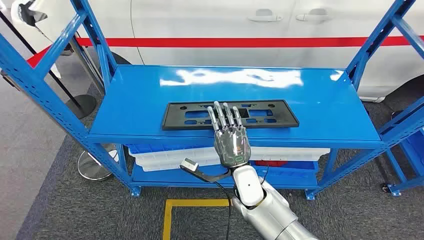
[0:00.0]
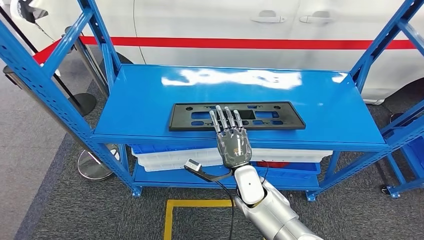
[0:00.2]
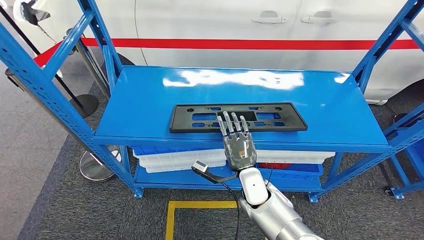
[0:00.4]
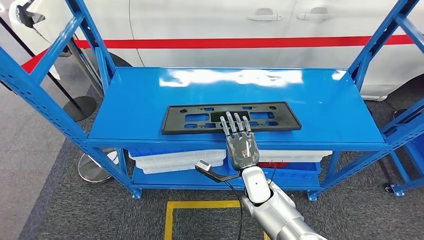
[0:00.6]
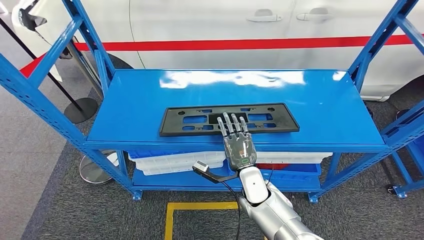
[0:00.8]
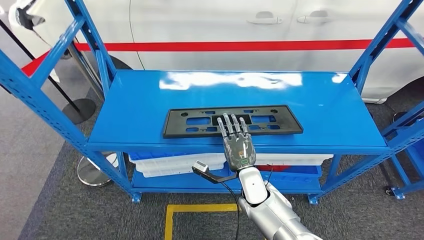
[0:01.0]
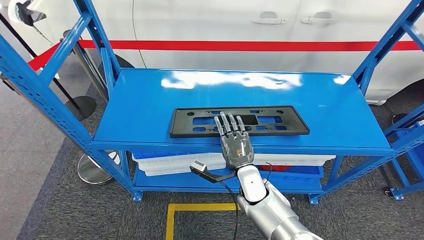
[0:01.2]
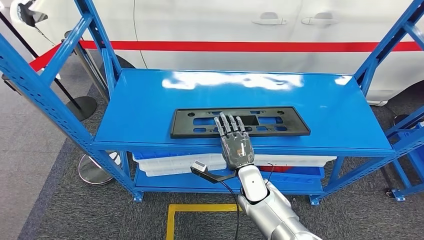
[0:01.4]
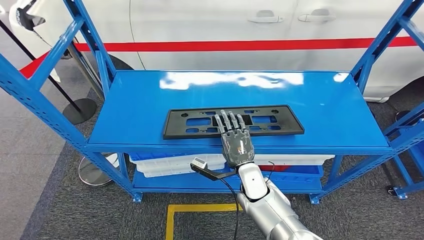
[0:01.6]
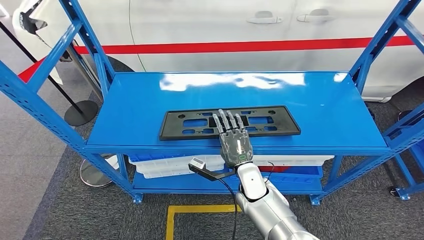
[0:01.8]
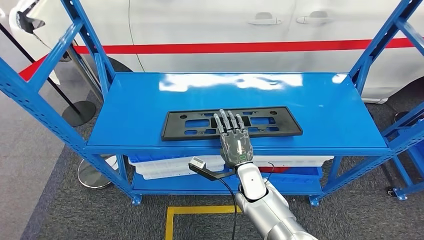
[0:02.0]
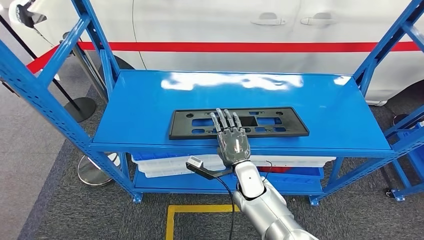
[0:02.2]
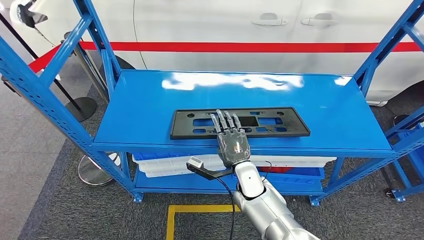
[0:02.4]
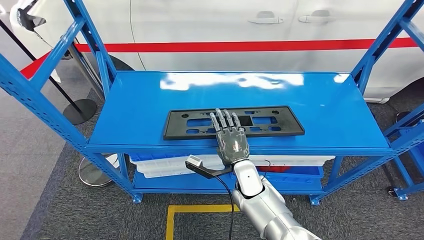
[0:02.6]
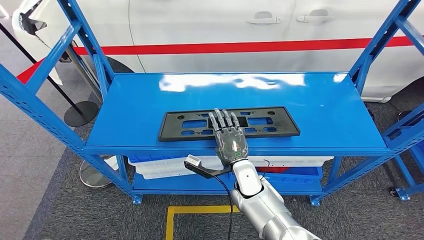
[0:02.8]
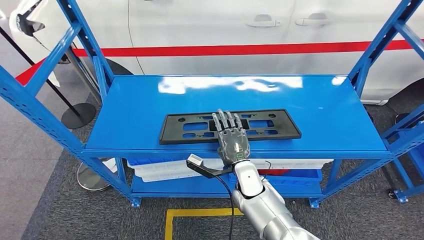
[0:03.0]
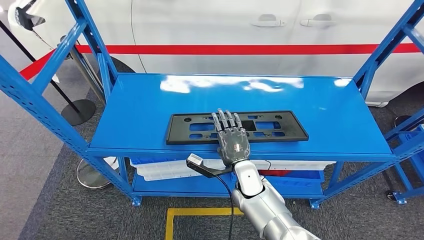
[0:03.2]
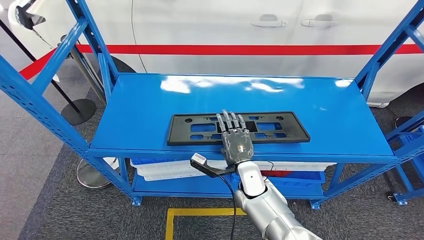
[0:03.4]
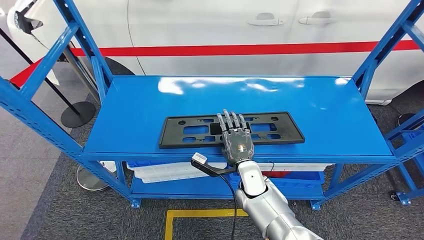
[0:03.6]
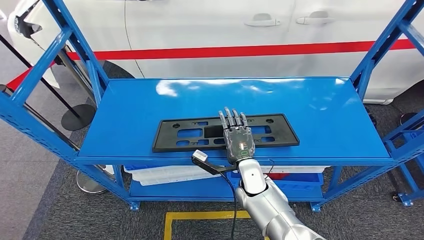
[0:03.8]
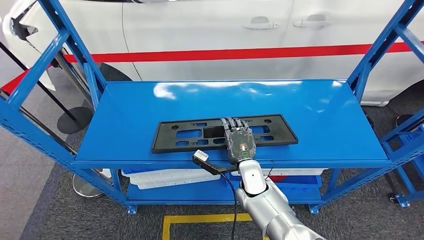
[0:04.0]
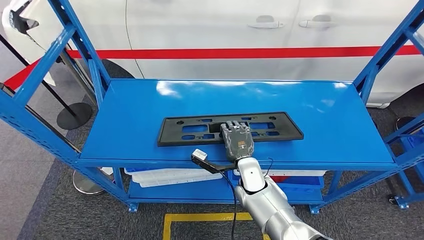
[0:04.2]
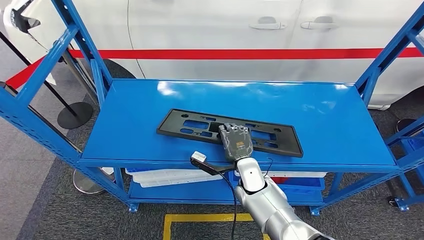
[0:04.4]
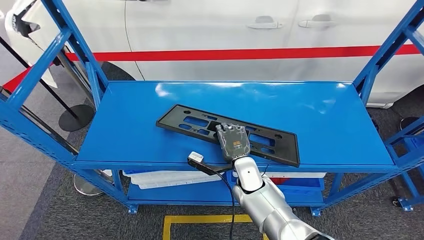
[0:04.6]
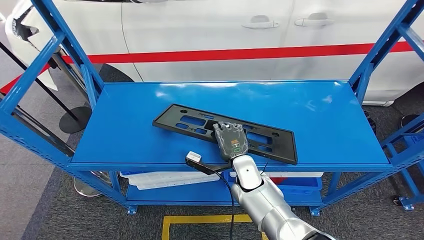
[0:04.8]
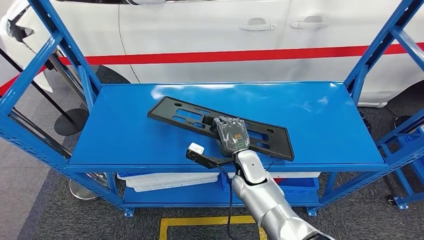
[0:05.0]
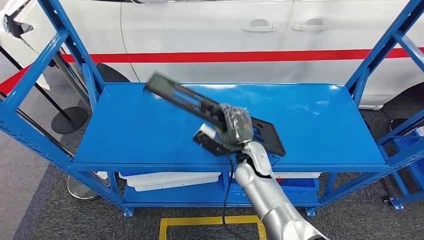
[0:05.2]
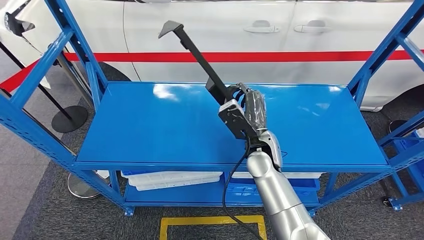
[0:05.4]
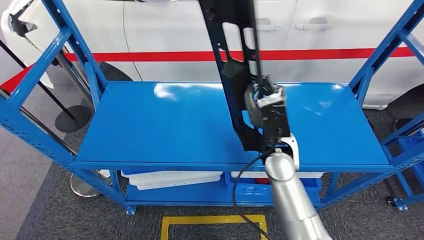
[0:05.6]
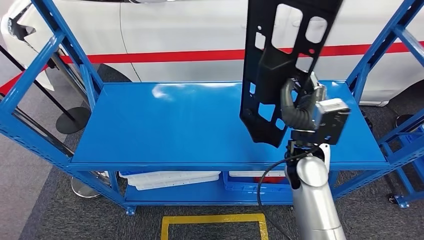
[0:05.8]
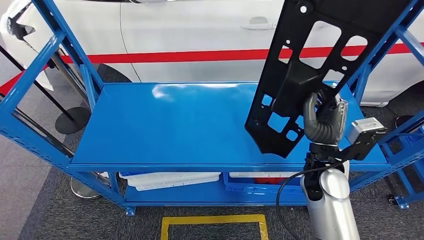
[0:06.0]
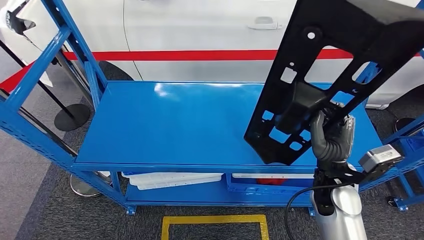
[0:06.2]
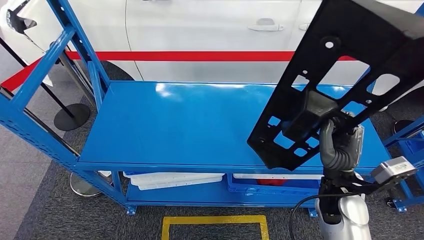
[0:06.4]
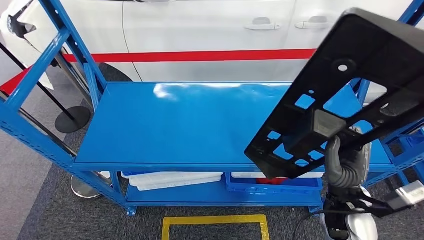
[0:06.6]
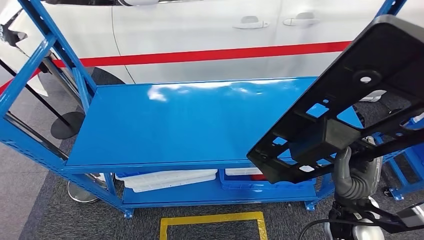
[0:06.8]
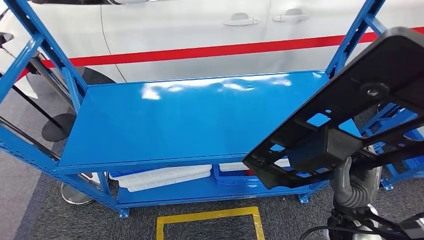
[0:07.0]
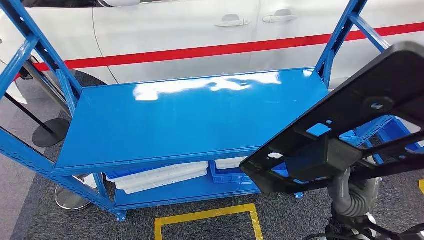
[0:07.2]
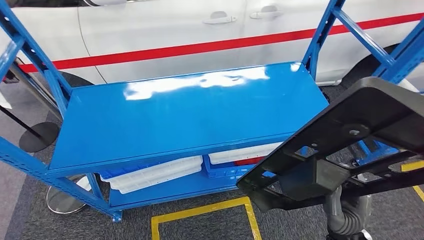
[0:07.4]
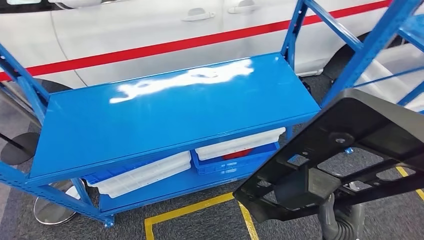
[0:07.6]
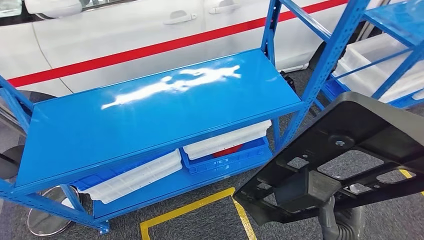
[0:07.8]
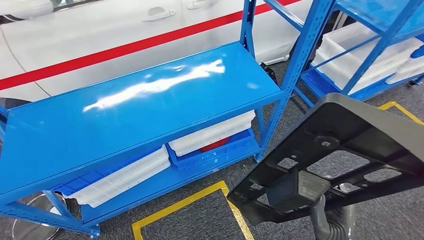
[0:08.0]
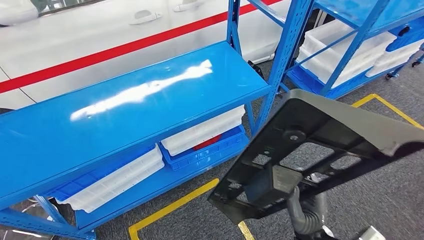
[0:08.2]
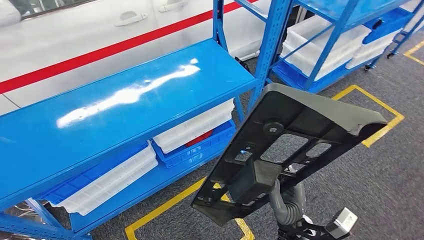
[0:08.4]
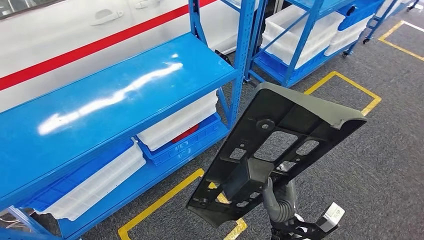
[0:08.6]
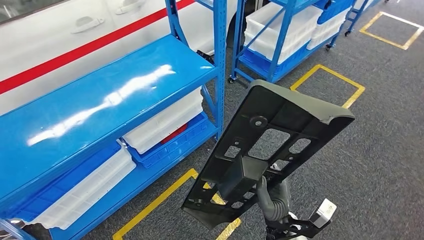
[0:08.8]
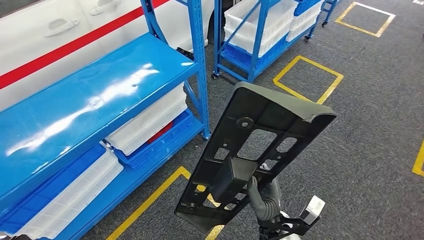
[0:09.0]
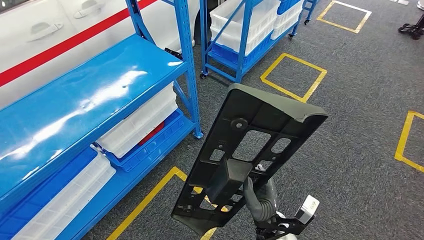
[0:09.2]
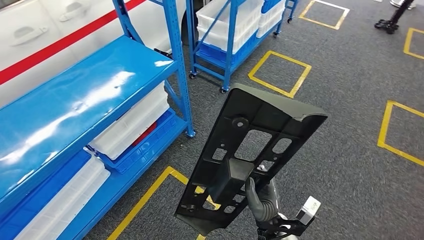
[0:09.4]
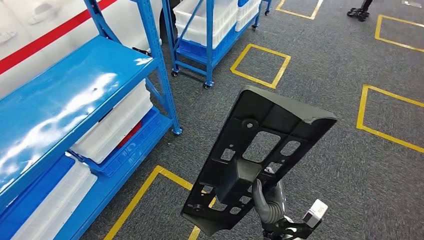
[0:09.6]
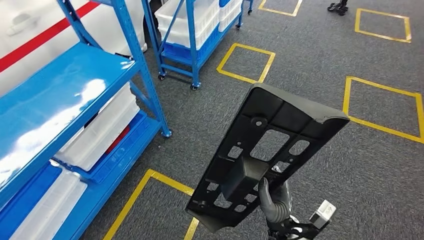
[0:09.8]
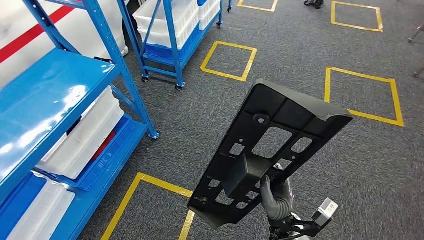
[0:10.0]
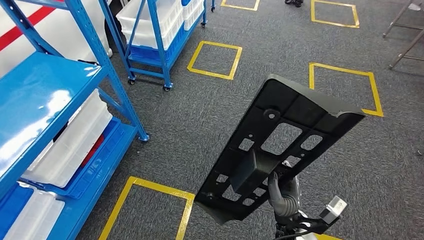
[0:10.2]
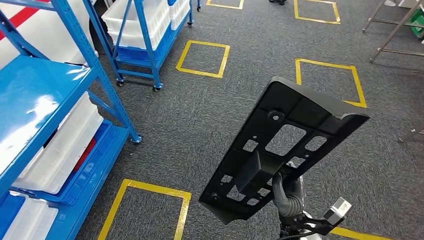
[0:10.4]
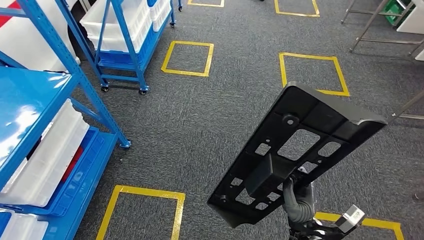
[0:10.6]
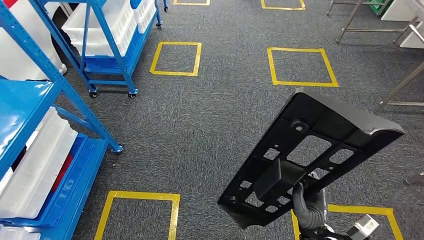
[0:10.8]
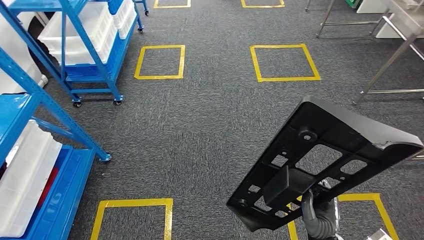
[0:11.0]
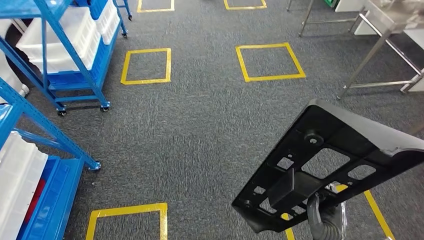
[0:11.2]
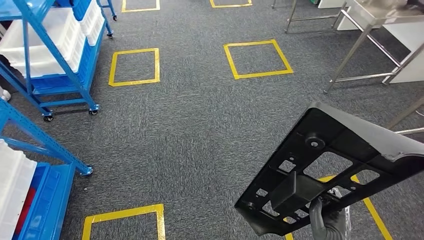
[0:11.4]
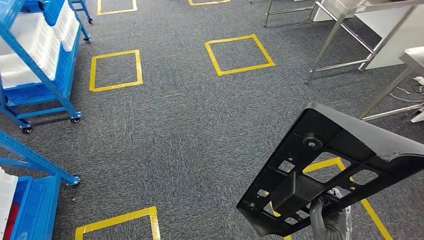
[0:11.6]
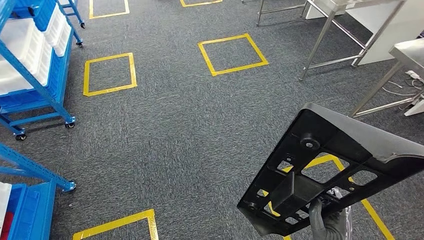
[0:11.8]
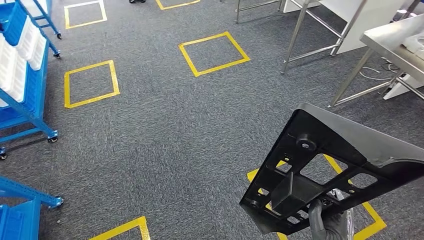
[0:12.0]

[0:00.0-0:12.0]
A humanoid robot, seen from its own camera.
Step, 0:00.0 to 0:06.6: Pick up the large material from the shelf.

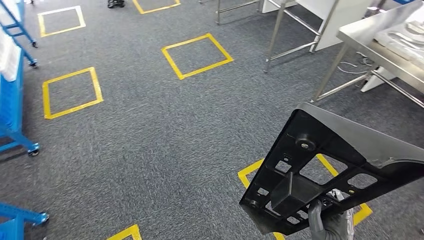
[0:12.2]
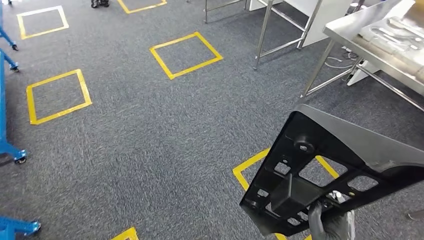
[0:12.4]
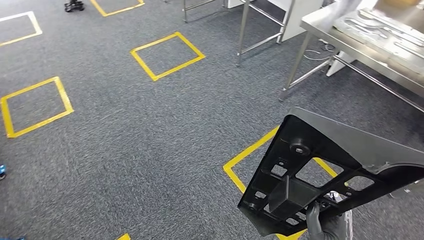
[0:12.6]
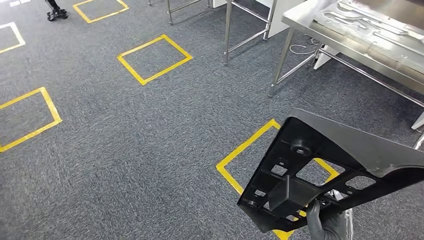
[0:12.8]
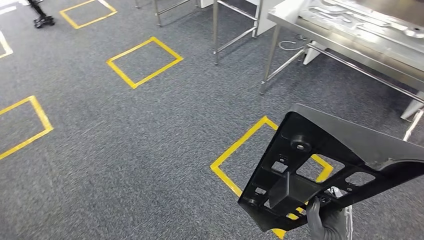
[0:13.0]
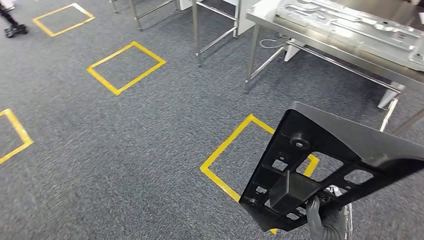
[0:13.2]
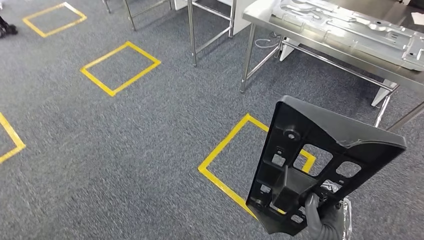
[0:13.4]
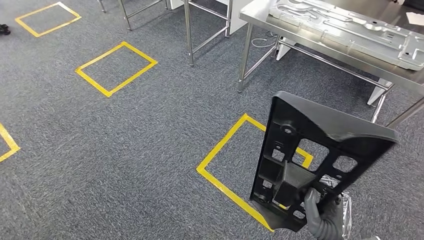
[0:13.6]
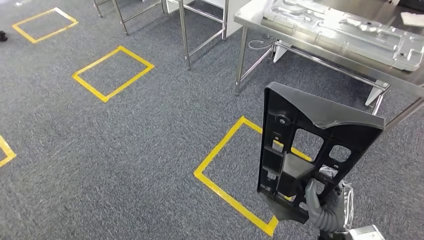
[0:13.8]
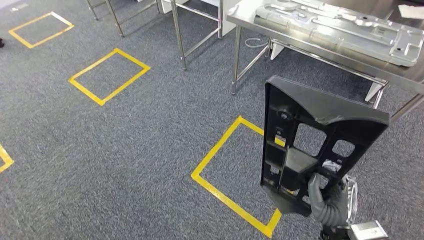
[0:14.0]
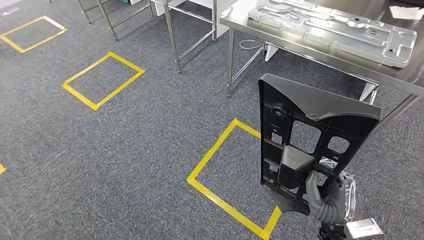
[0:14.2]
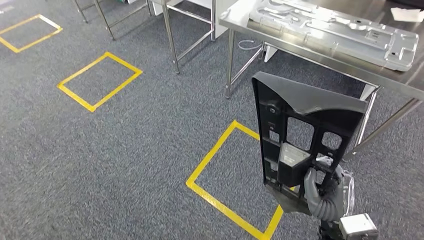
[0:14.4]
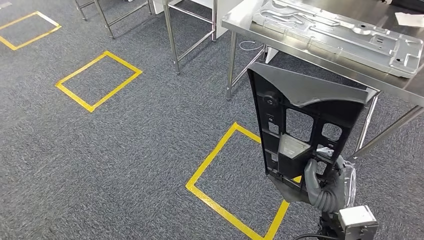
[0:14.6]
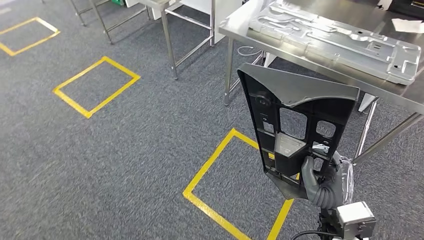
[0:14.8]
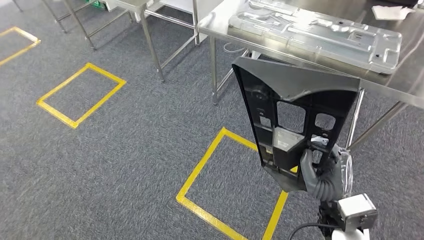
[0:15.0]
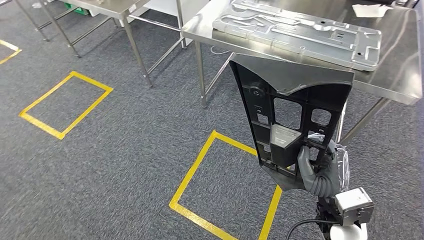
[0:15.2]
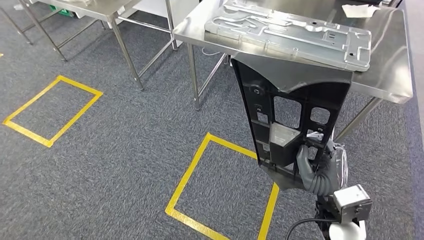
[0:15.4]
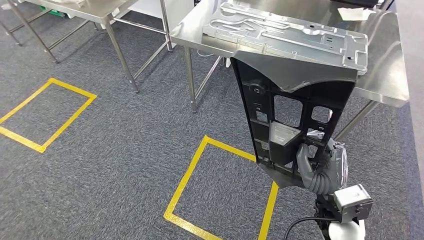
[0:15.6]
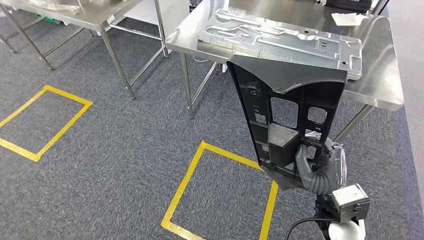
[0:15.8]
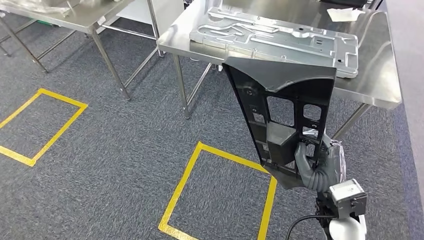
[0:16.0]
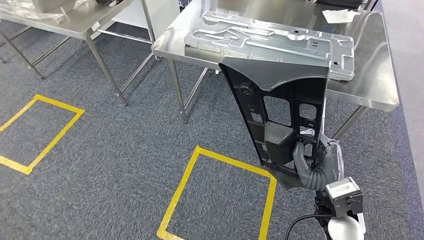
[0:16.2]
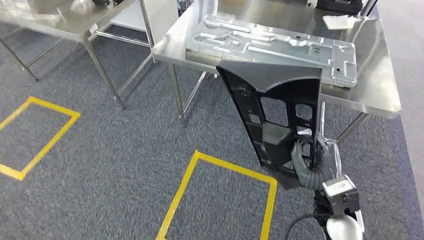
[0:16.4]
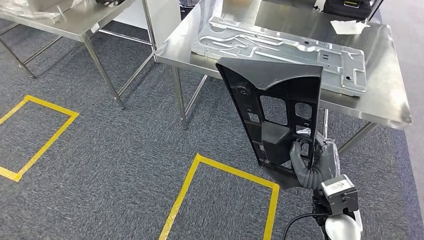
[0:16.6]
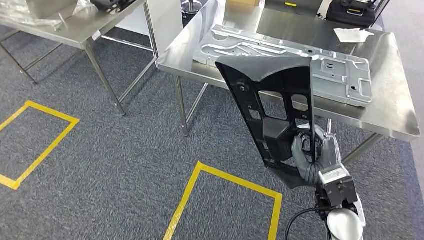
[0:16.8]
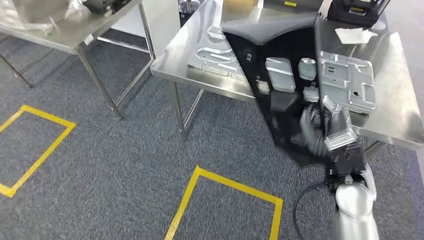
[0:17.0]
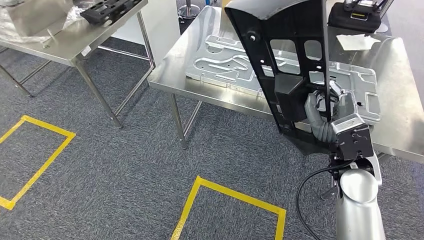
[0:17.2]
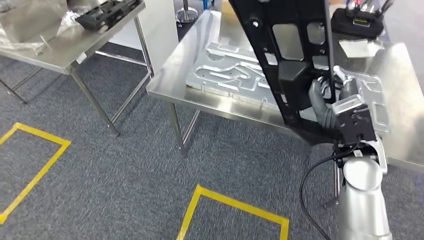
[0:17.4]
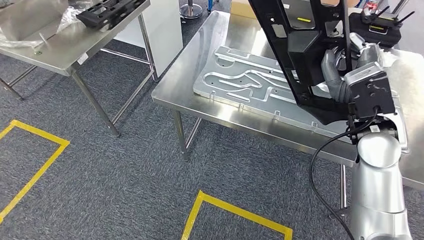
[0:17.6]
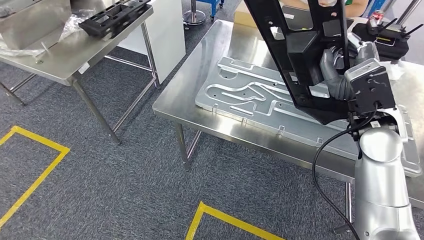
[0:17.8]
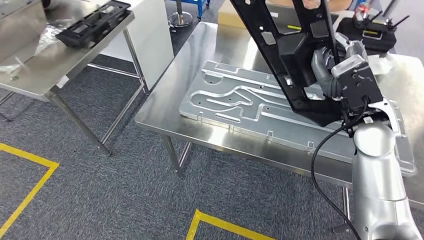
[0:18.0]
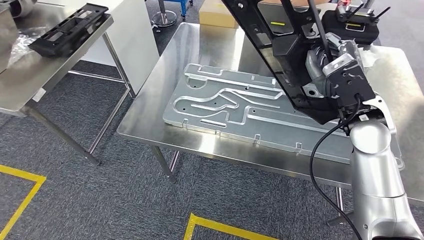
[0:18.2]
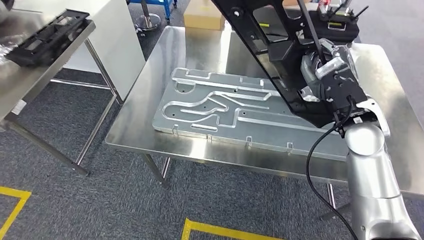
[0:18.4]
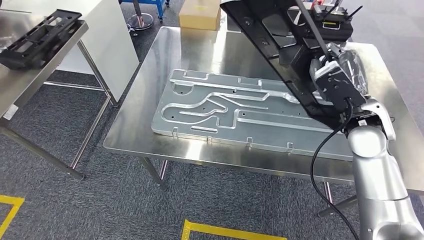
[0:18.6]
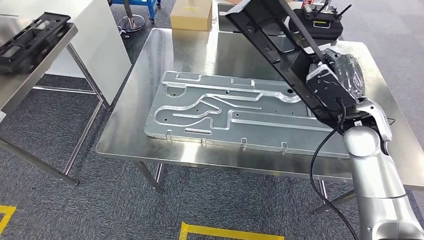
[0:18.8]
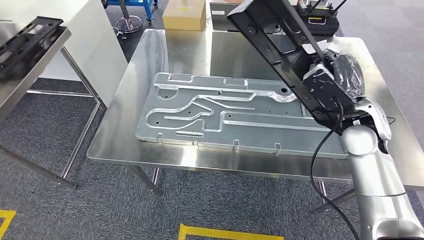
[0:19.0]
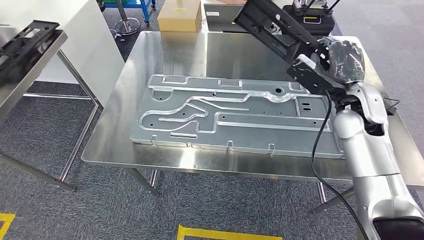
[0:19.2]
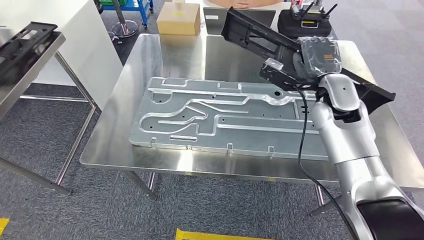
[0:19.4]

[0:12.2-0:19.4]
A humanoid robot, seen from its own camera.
Step, 0:12.2 to 0:17.4: Move the large material to the front of the workbench.
